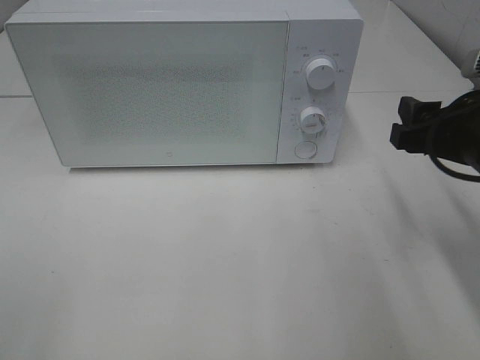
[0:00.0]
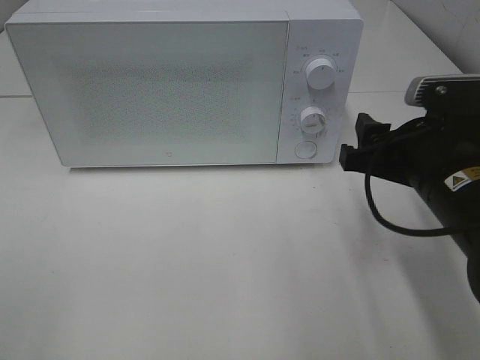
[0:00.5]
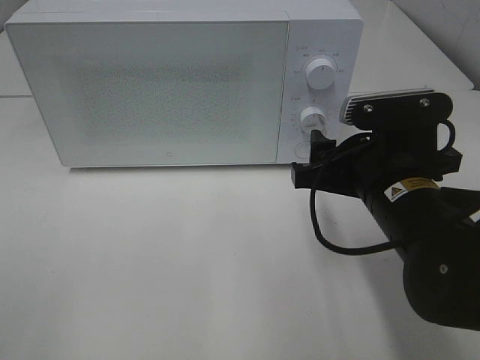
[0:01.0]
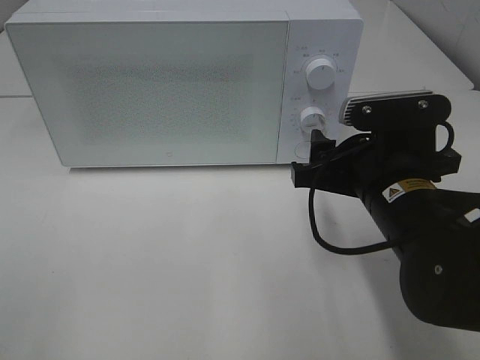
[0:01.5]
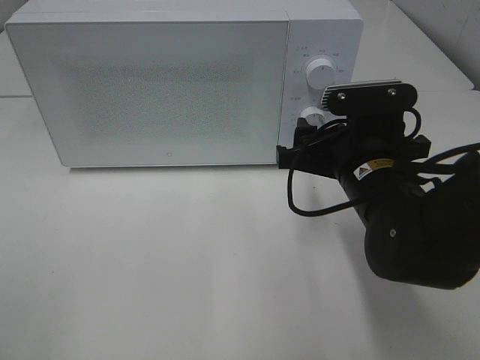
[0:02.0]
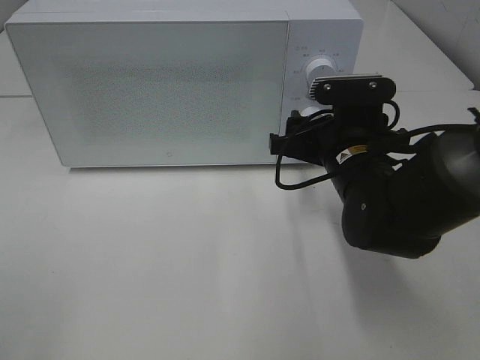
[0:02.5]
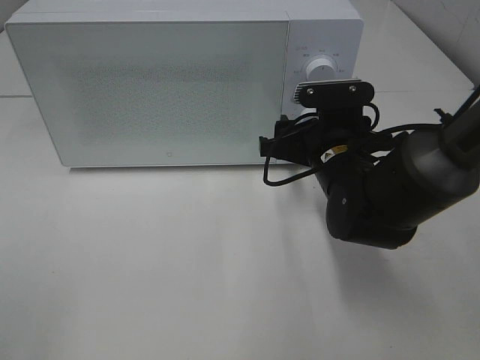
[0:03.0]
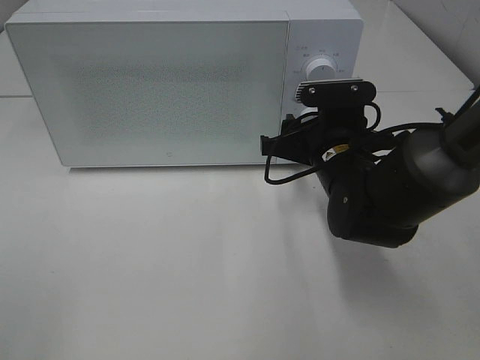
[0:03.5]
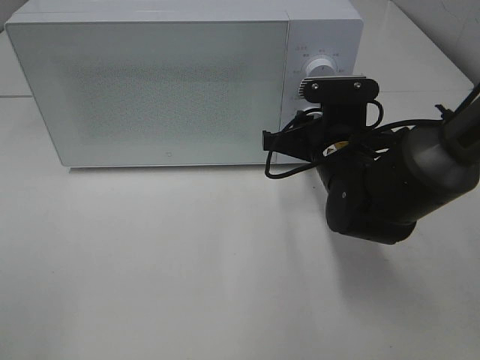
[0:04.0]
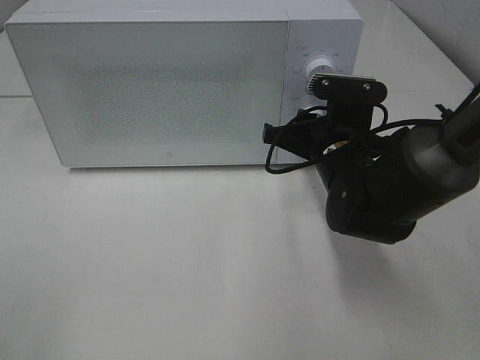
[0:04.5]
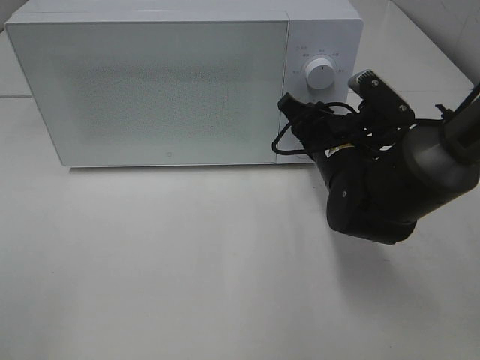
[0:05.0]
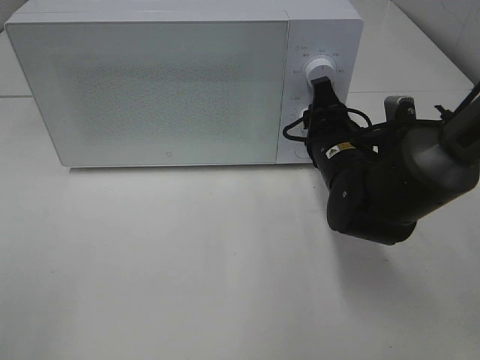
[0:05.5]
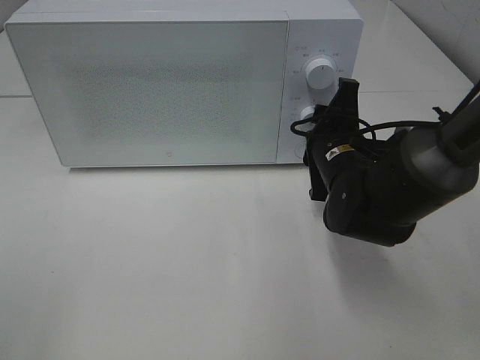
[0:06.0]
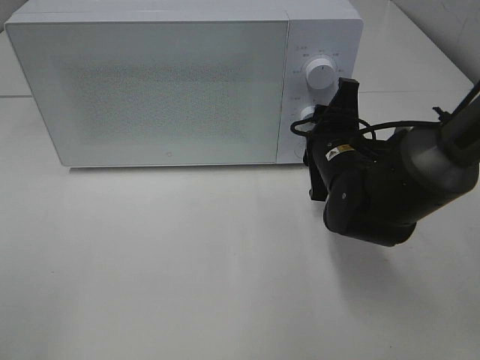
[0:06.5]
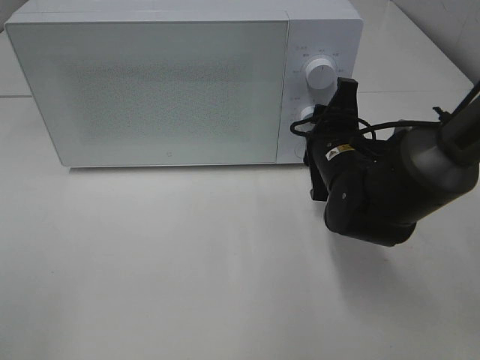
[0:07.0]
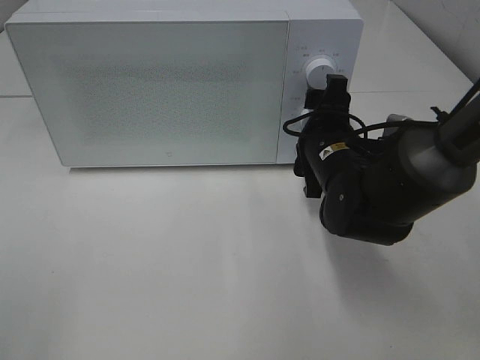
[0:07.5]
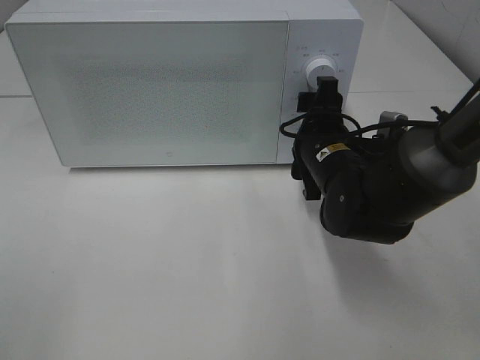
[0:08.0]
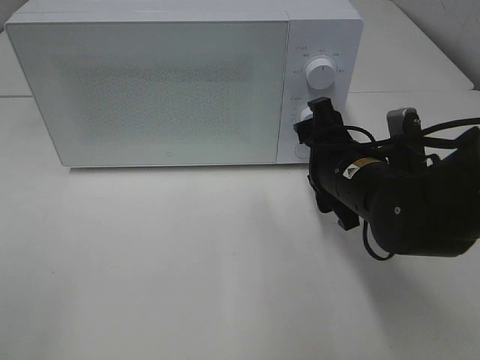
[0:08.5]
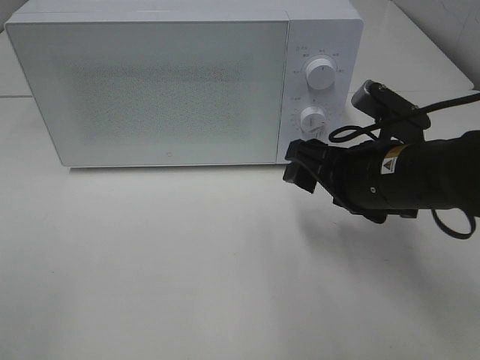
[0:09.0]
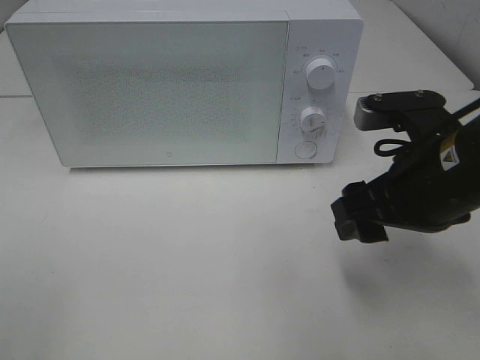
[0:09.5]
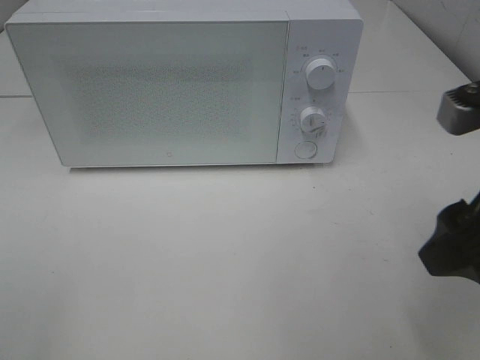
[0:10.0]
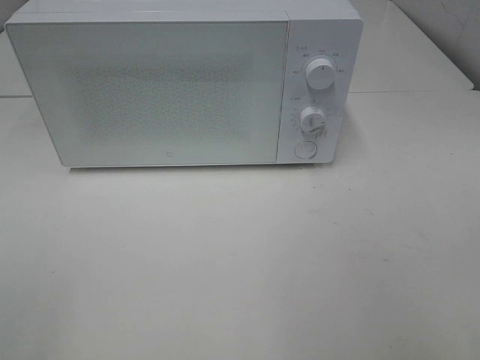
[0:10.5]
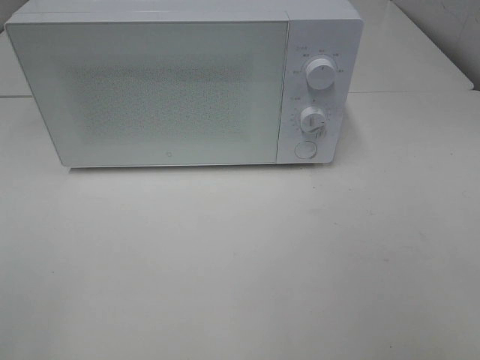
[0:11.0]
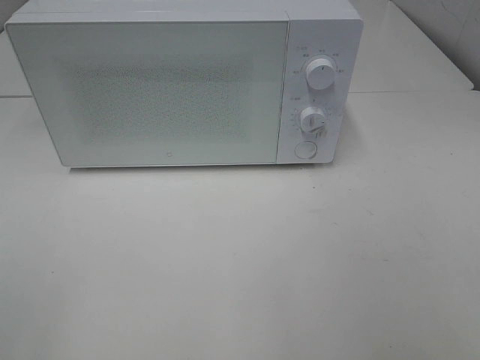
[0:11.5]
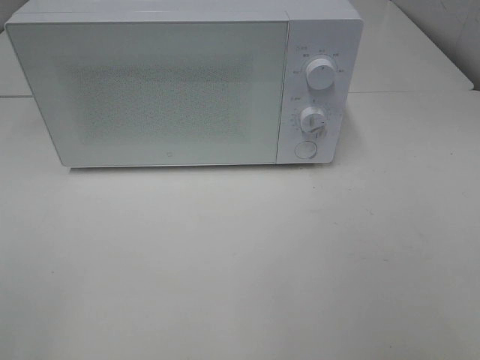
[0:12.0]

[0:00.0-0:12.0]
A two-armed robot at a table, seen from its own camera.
Task of the whole recording: Heat Sandwich.
Step, 0:00.0 to 0:07.5: Right hand: twist timer button.
0:00.0 to 0:02.0: The right gripper shifts some 10 cm to the left.
0:02.0 to 0:04.0: The right gripper moves forward, about 5 cm, and closes its fingers.
0:06.0 to 0:08.0: The right gripper opens its fingers.
0:08.0 to 0:10.0: The right gripper shifts some 25 cm backward, upward and to the right.
0:10.0 to 0:12.0: The right gripper shifts approximately 15 cm backward and to the right.

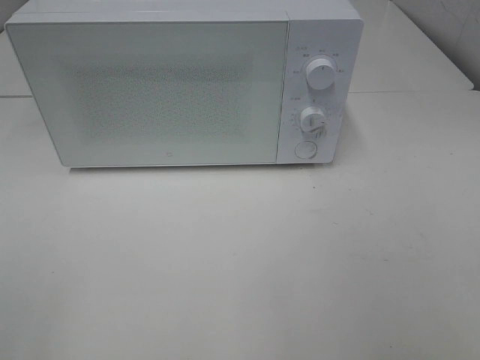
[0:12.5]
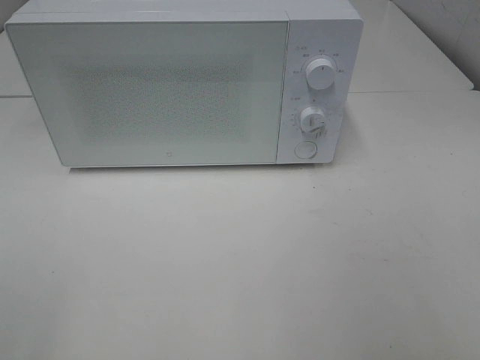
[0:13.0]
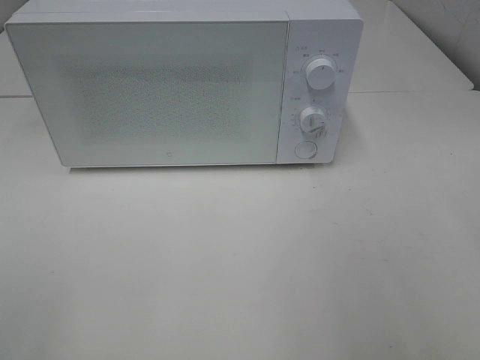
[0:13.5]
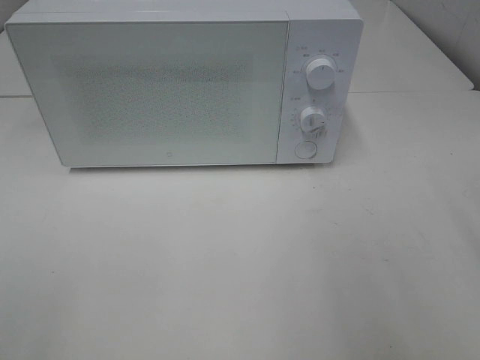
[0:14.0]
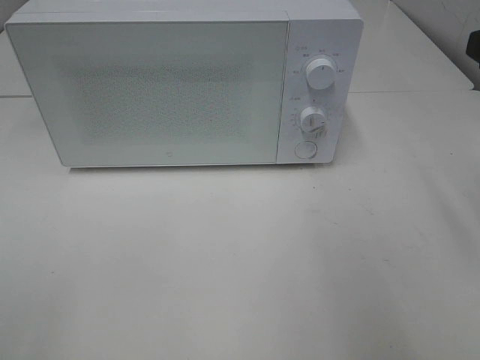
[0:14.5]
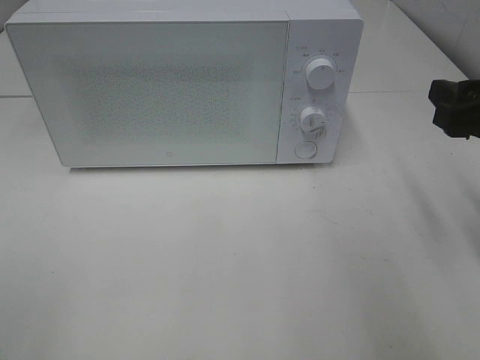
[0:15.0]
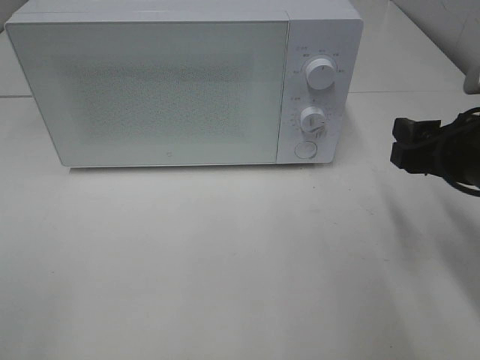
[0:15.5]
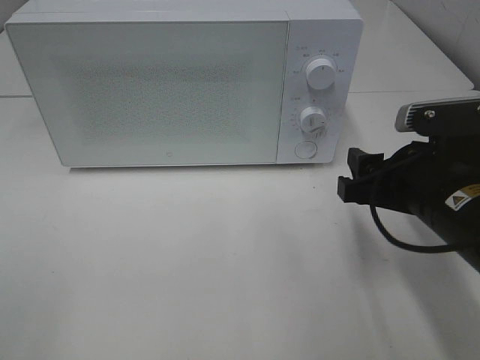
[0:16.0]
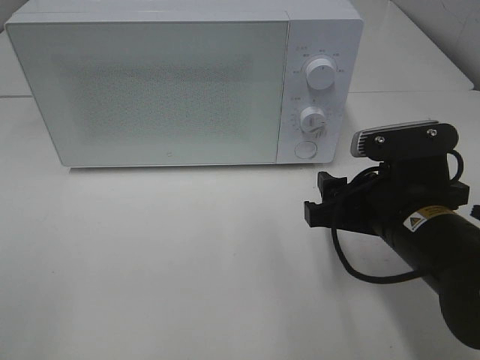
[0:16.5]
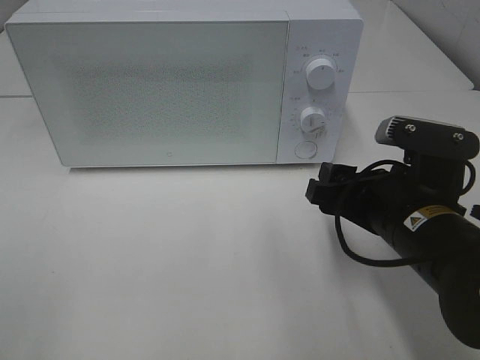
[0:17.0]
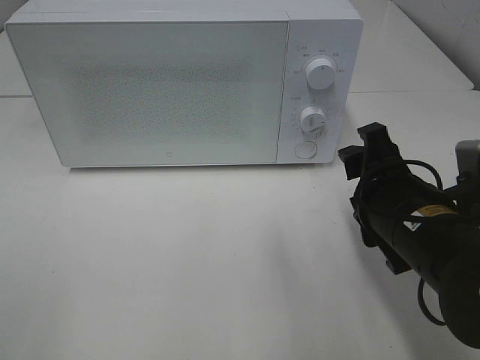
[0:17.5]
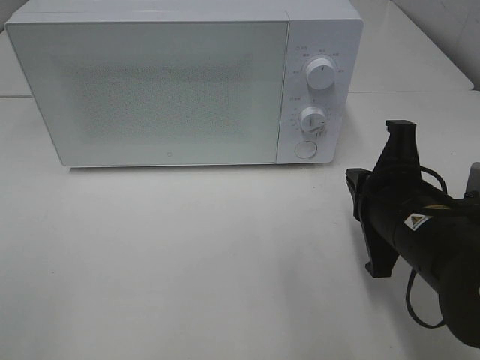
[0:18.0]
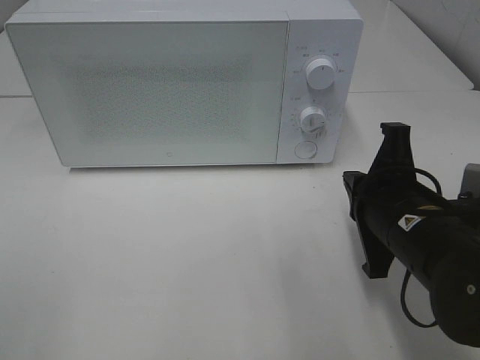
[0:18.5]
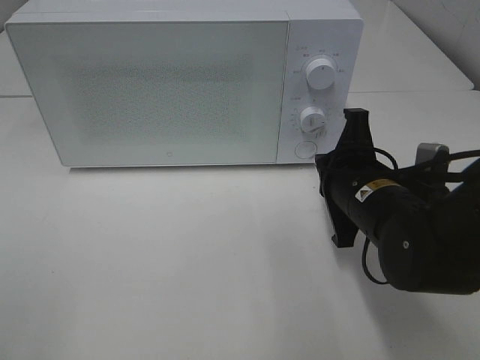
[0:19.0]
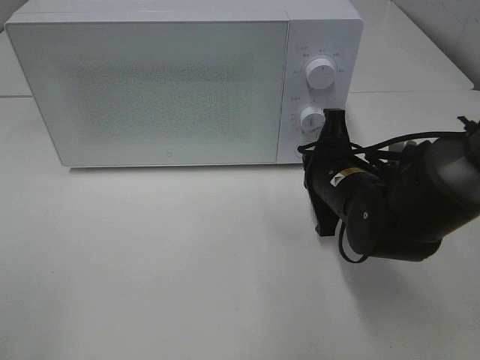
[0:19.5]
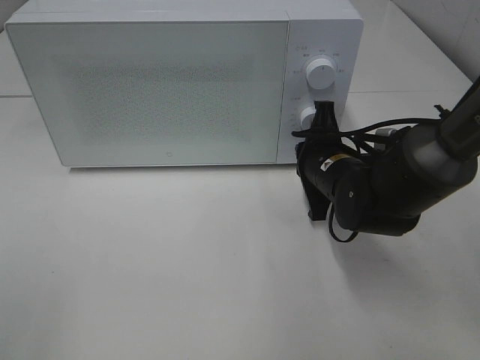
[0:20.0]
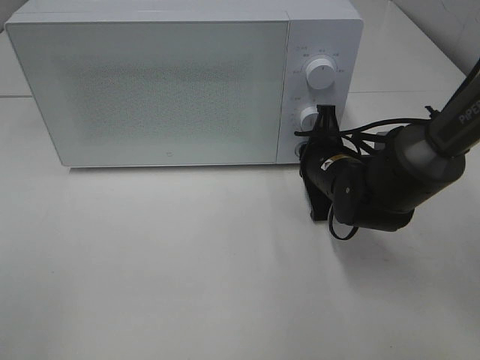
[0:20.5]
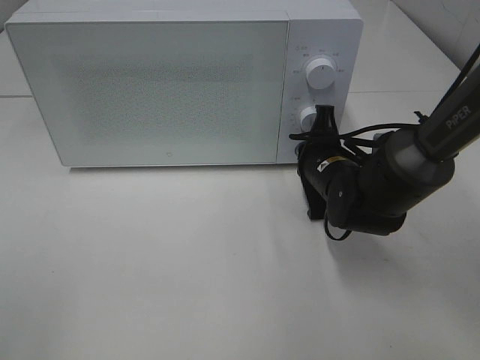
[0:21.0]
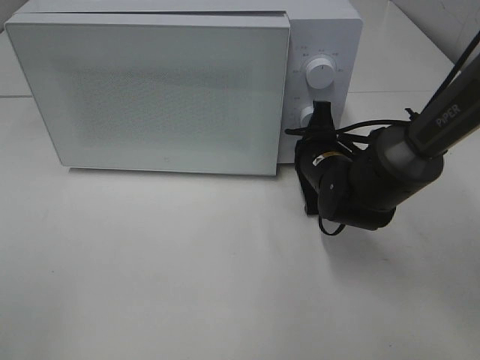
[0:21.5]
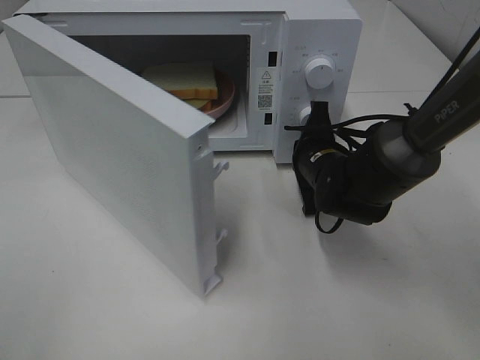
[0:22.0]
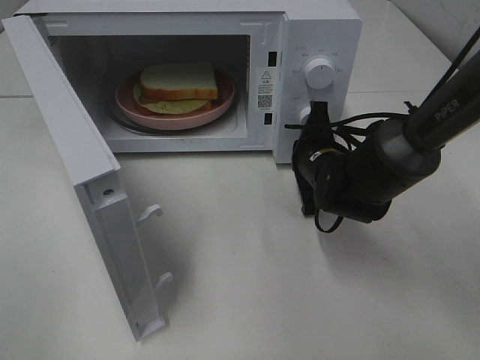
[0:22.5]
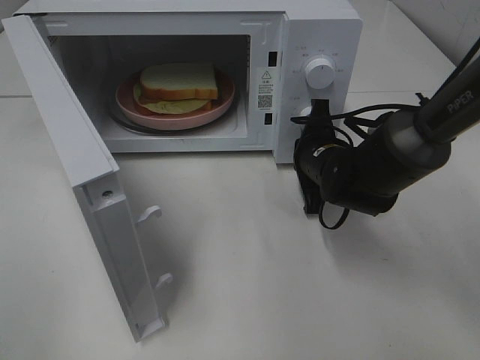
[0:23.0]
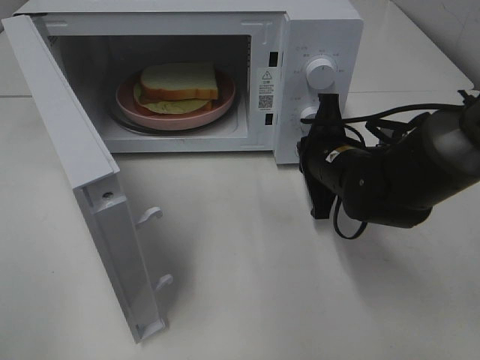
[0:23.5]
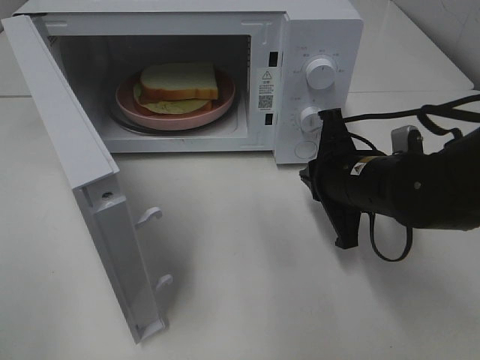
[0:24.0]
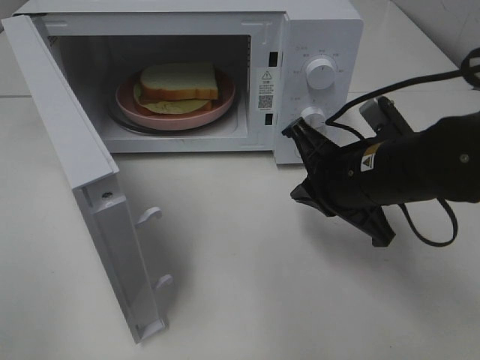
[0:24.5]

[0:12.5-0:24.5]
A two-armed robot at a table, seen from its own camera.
Task of the whole recording: Heat Sandwich.
Step, 0:12.5 to 0:23.5: Right hand: press the switch.
0:14.5 to 0:16.5: The right gripper moves downward and to the left, approximately 20 cm.
0:16.5 to 0:18.5: The right gripper closes its fingers.
0:18.5 to 0:20.5: The right gripper heads forward and downward, covering some 15 cm.
0:22.5 to 0:24.5: The right gripper goes some 15 cm backward and upward.

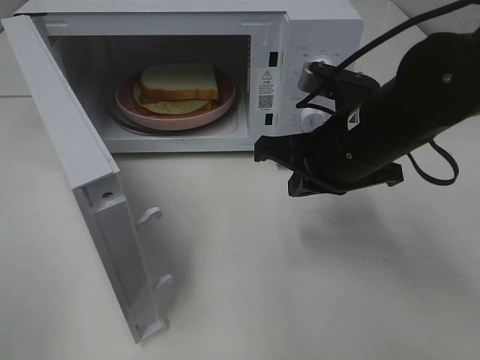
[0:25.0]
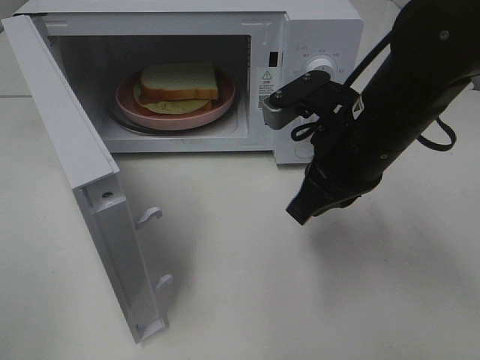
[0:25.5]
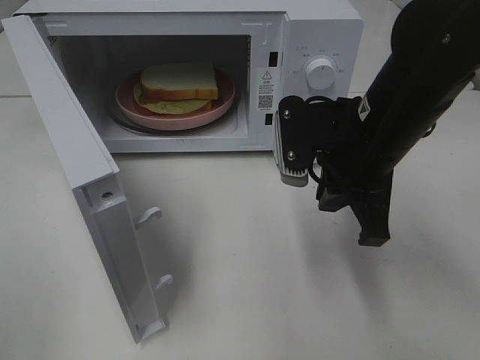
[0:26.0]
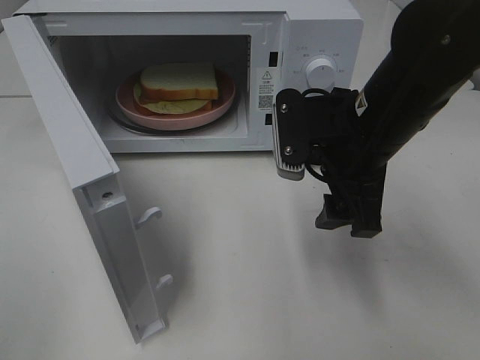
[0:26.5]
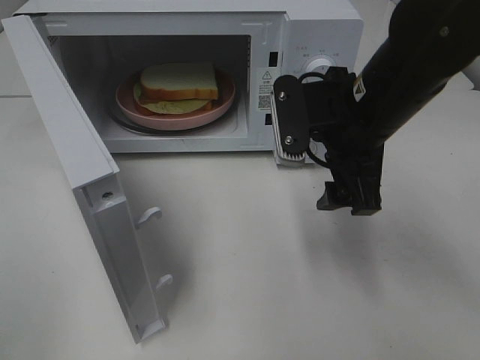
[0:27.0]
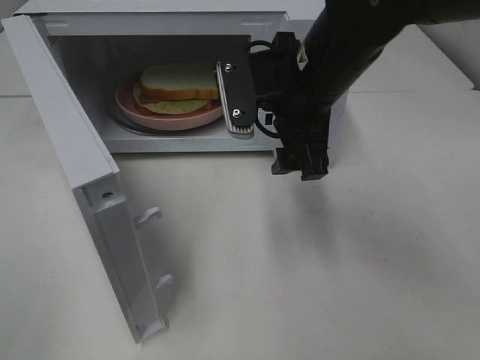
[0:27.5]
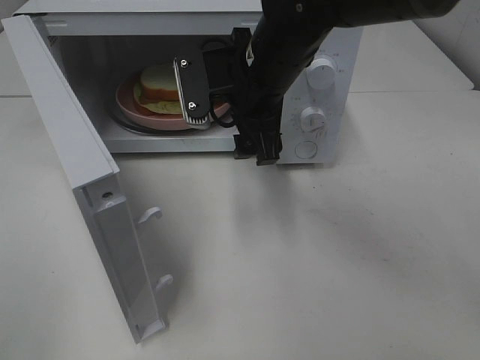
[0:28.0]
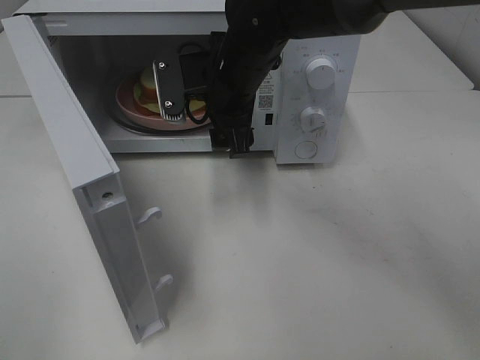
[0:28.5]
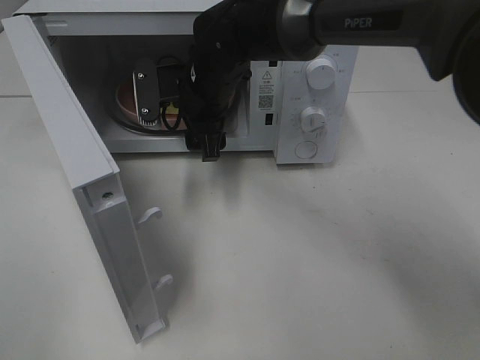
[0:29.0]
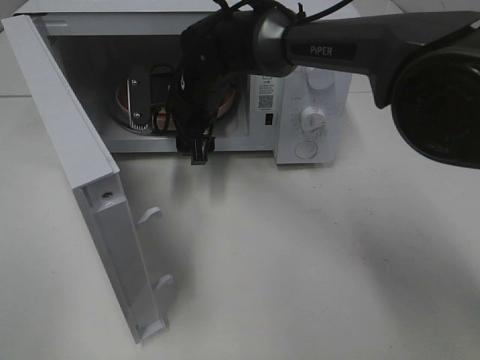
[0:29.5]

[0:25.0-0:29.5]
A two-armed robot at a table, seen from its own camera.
Task of the whole recording: Heat Sandwich.
0:25.0 to 0:27.0: The right gripper opens its fingers.
0:27.0 to 0:29.5: The right gripper goes approximately 25 cm to the left, forward and downward.
